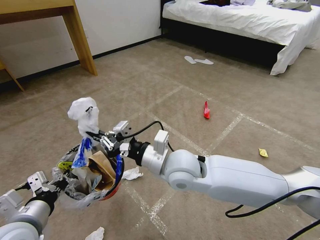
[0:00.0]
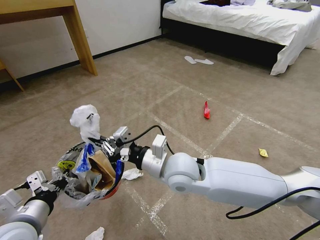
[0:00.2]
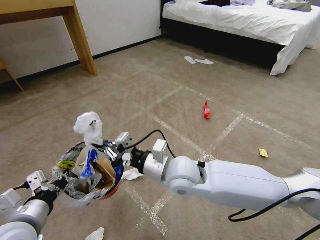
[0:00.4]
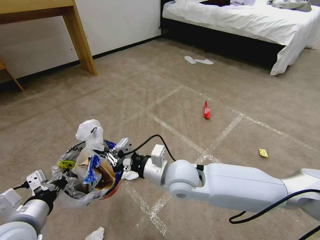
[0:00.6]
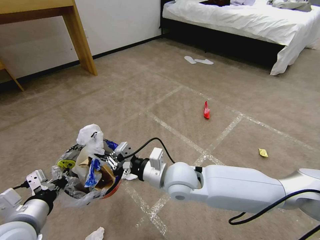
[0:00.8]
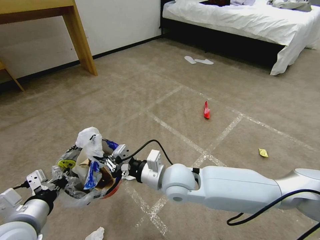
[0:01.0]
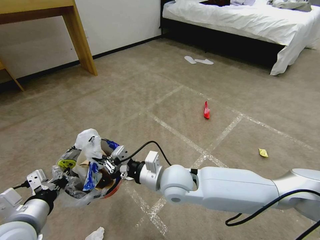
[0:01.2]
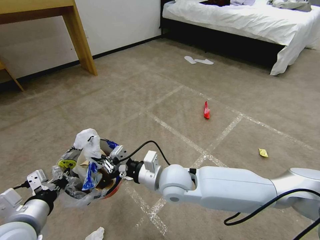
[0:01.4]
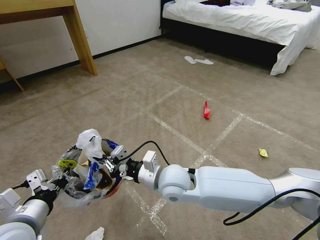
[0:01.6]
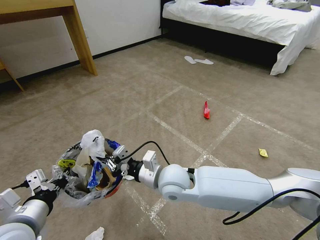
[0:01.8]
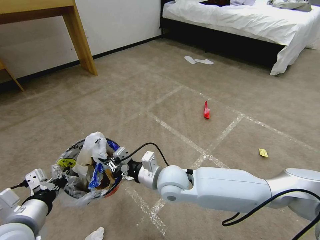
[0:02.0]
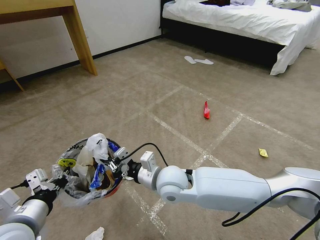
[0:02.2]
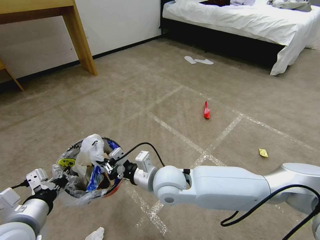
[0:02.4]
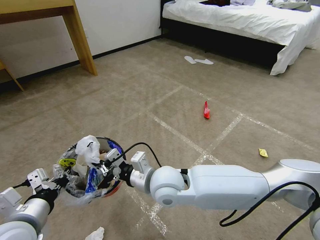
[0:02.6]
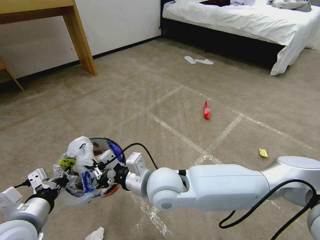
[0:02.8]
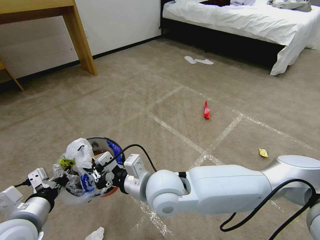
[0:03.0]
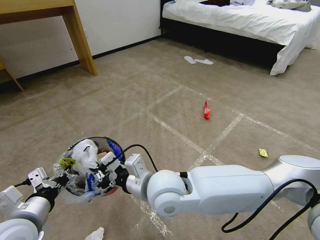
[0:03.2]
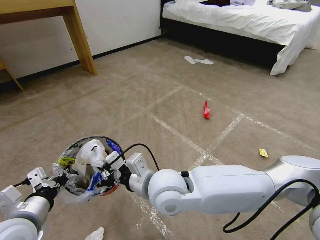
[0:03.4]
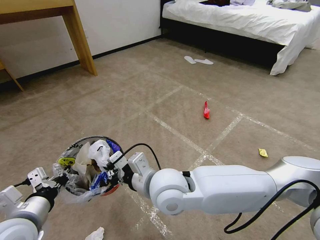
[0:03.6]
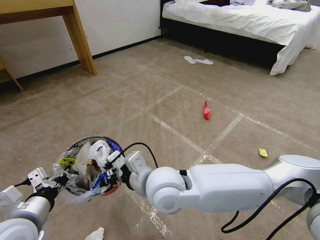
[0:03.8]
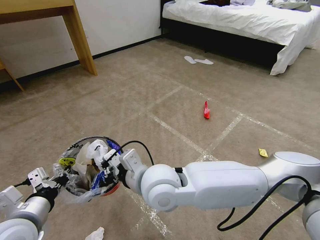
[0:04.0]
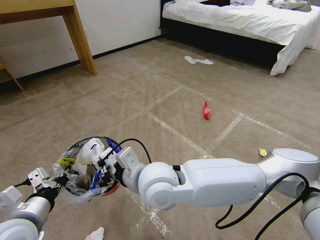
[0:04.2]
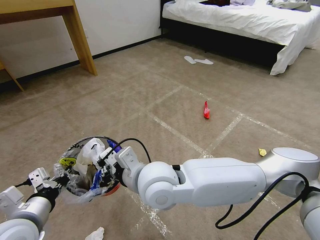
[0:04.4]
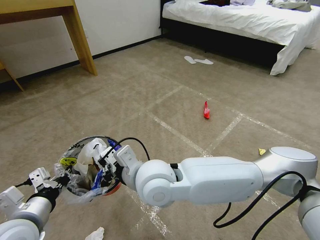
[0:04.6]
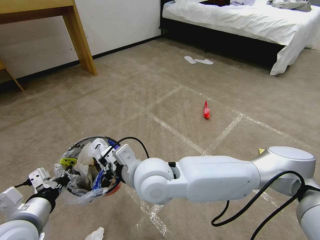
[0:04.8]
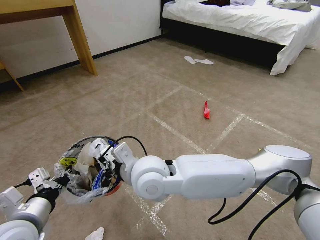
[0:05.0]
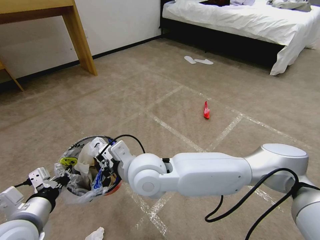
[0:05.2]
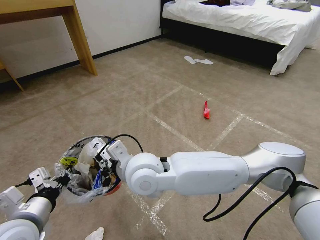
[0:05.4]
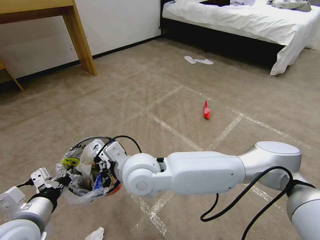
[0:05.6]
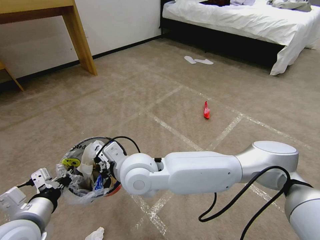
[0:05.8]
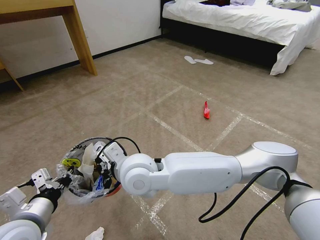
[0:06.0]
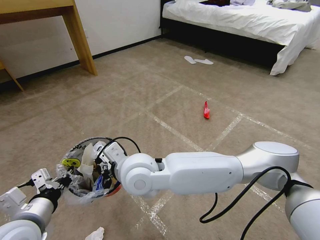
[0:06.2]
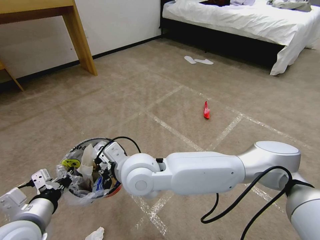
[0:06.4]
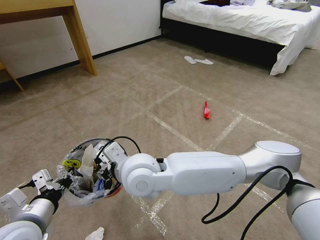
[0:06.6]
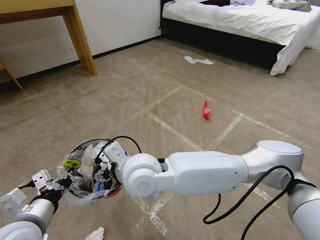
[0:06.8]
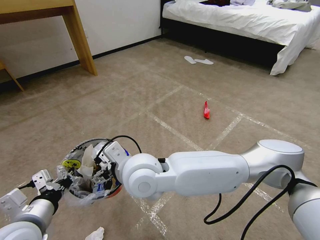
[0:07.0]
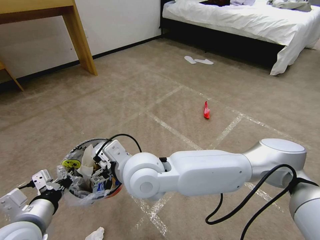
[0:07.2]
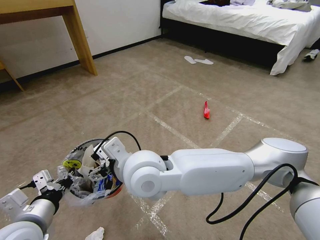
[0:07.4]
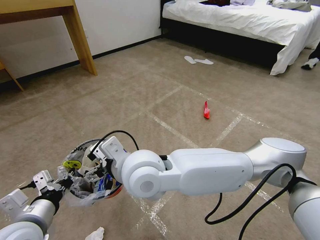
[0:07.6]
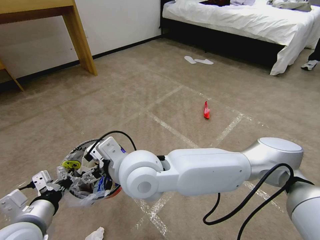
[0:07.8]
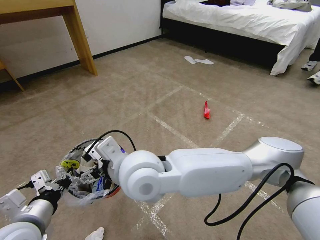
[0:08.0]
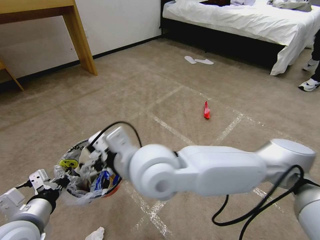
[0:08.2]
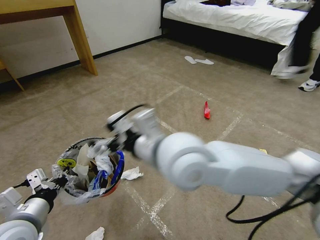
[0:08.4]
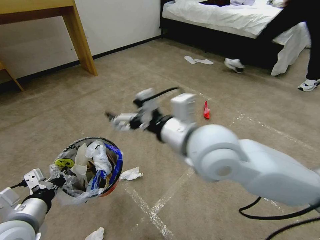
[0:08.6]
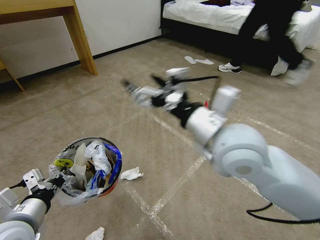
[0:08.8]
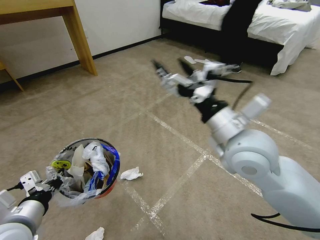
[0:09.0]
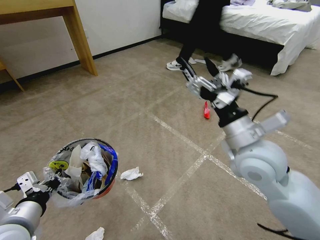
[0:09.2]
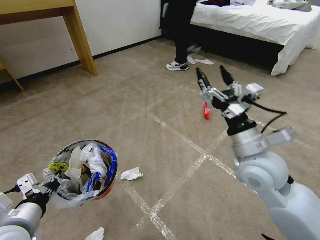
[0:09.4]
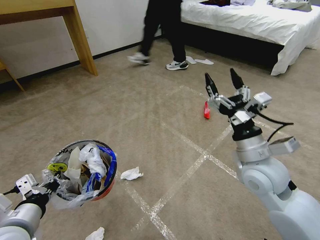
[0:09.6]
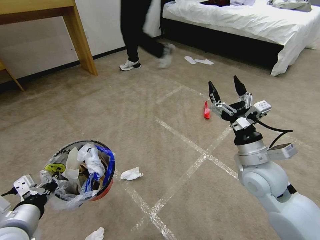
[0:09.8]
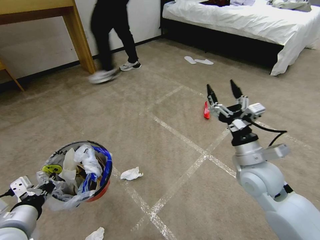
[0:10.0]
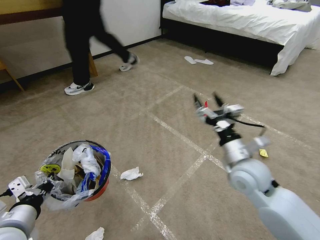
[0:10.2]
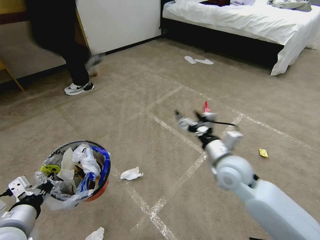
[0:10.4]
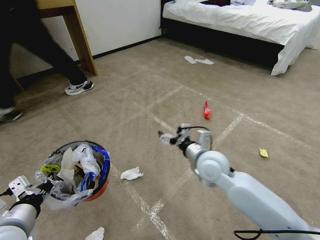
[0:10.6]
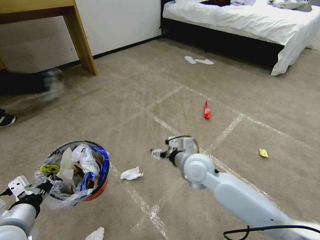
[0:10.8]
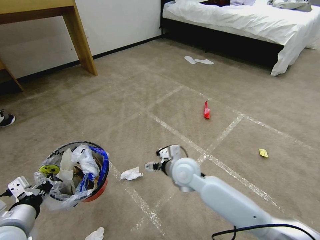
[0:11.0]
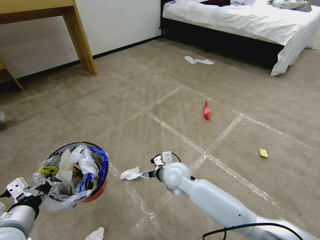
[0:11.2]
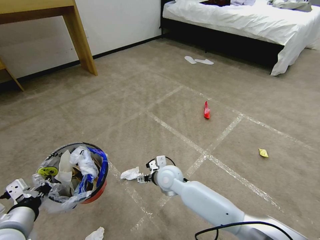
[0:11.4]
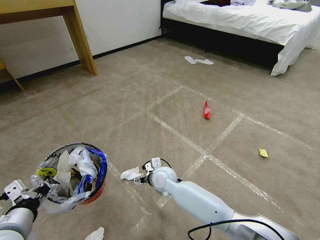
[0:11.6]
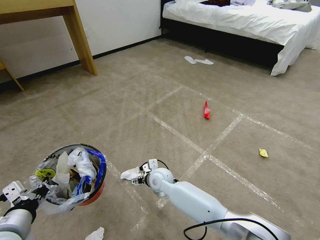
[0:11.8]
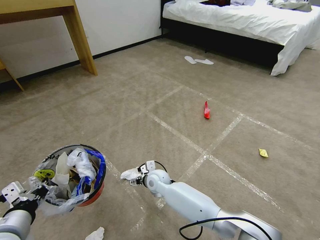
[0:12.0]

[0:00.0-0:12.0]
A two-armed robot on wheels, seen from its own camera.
Task of the whole recording: Pick up the trash bin and place the garbage on the floor into it.
0:00.0 to 0:01.6: The right gripper moves downward, roughly 5 cm.
0:01.6 to 0:03.0: The right gripper moves upward, roughly 5 cm.
0:03.0 to 0:04.4: The grippers move only a little.
0:04.4 to 0:06.0: The right gripper moves about 5 cm.
0:06.0 to 0:07.6: The right gripper moves roughly 5 cm, and opens up.
0:07.6 to 0:09.0: The right gripper moves to the right, about 25 cm.
0:09.0 to 0:10.4: The right gripper is displaced downward by about 15 cm.
0:10.4 to 0:12.0: The right gripper travels to the left and downward by approximately 30 cm.

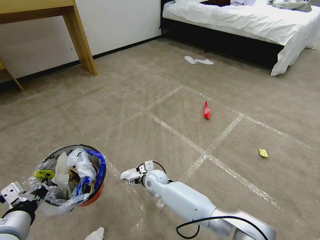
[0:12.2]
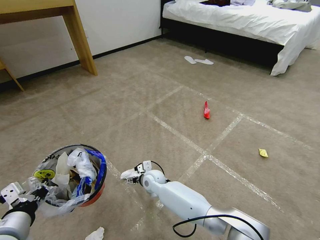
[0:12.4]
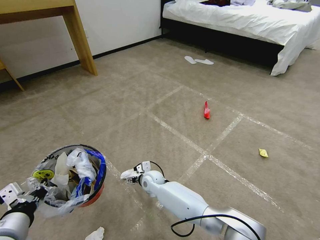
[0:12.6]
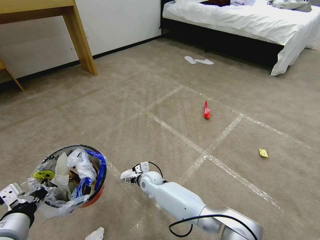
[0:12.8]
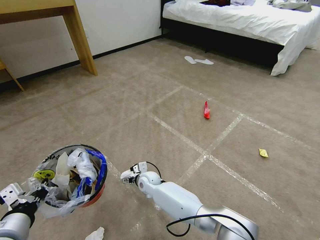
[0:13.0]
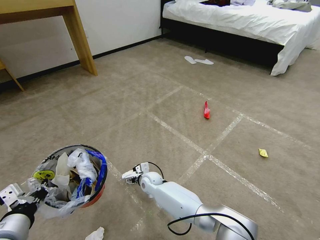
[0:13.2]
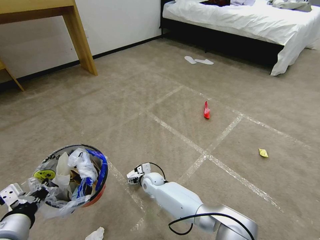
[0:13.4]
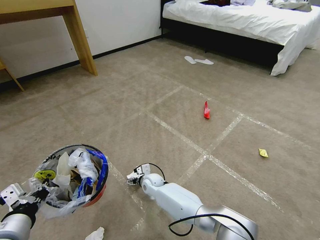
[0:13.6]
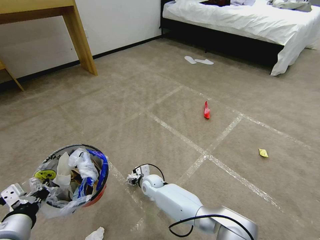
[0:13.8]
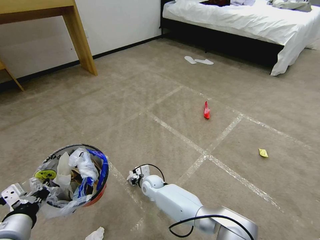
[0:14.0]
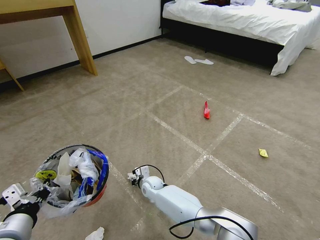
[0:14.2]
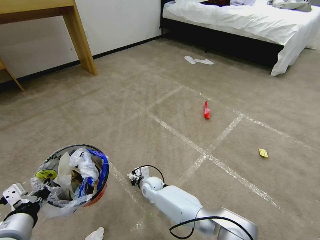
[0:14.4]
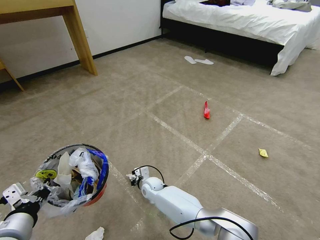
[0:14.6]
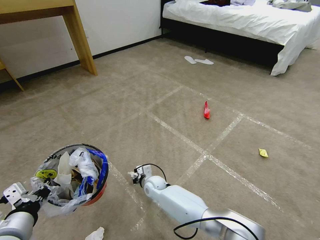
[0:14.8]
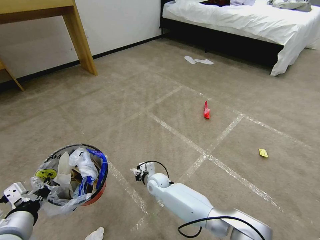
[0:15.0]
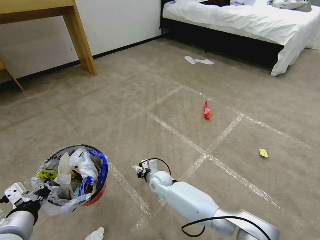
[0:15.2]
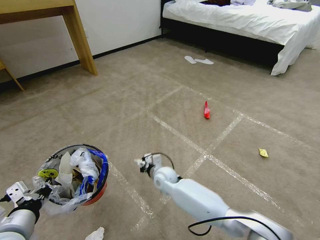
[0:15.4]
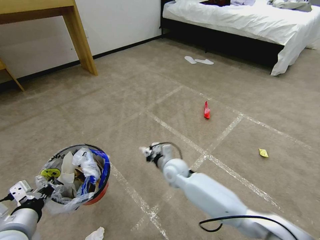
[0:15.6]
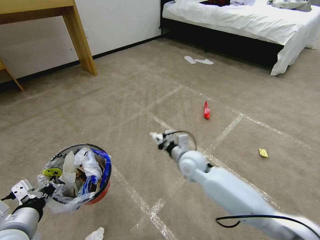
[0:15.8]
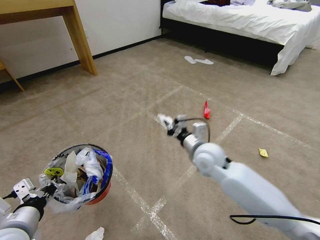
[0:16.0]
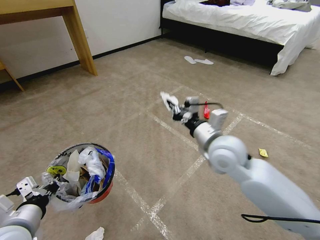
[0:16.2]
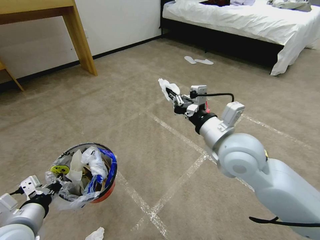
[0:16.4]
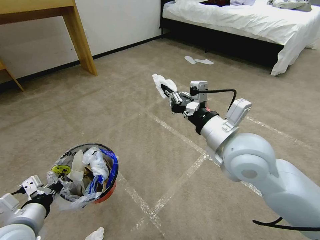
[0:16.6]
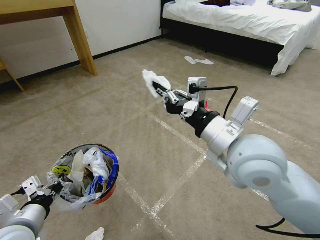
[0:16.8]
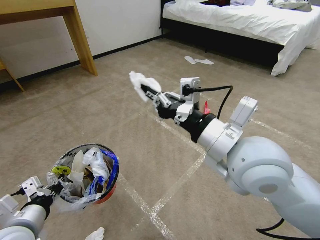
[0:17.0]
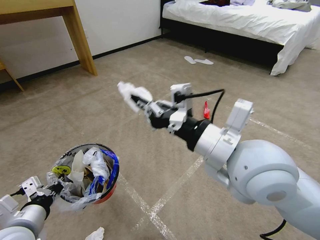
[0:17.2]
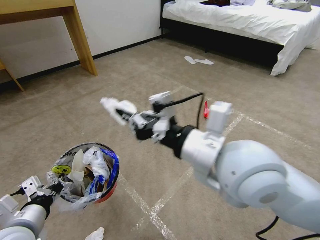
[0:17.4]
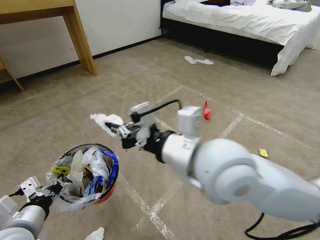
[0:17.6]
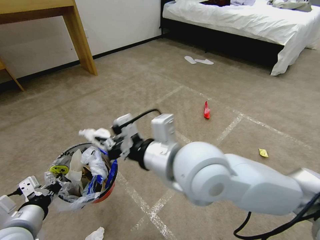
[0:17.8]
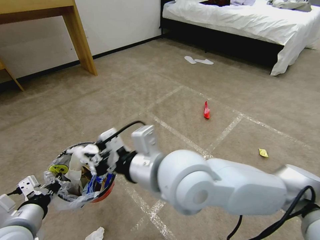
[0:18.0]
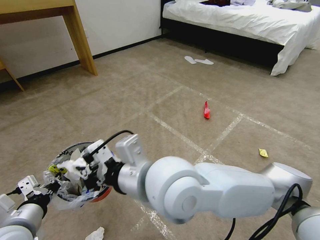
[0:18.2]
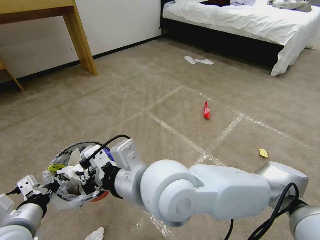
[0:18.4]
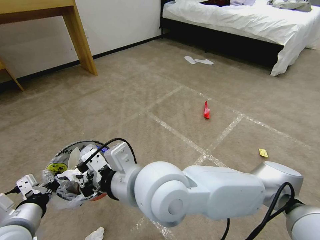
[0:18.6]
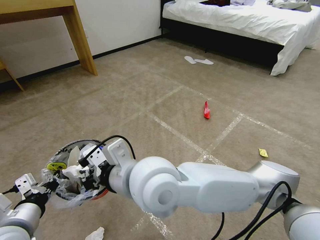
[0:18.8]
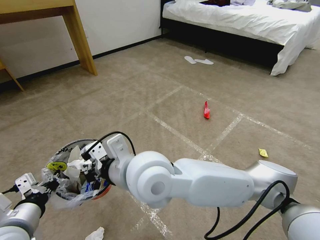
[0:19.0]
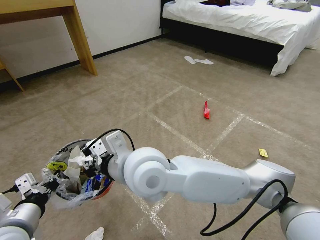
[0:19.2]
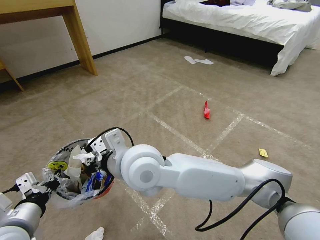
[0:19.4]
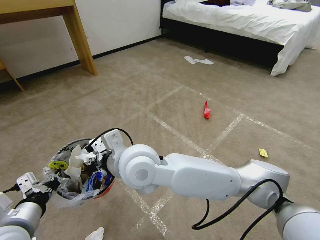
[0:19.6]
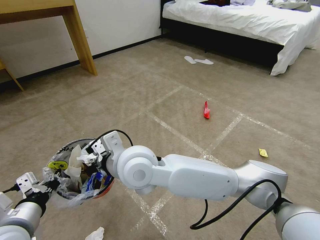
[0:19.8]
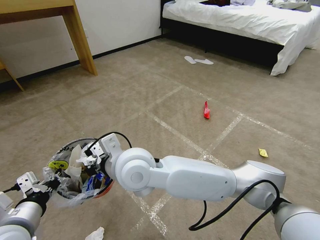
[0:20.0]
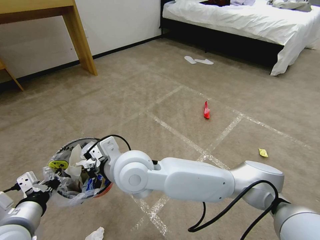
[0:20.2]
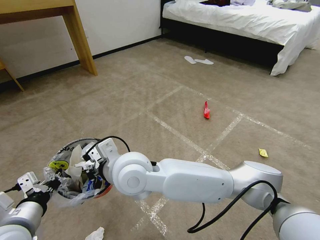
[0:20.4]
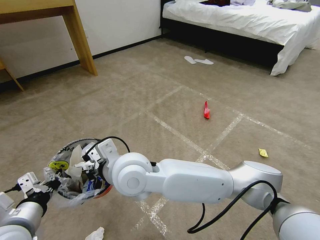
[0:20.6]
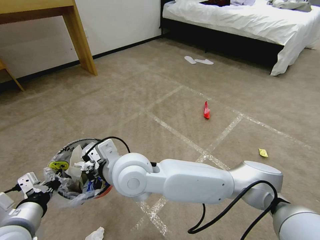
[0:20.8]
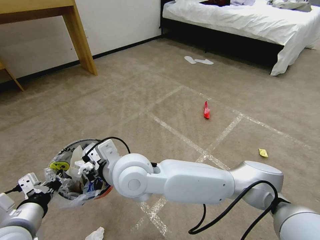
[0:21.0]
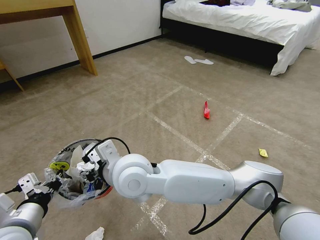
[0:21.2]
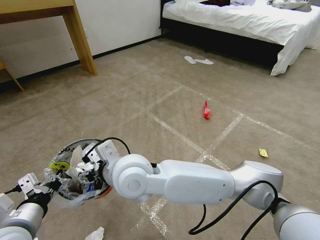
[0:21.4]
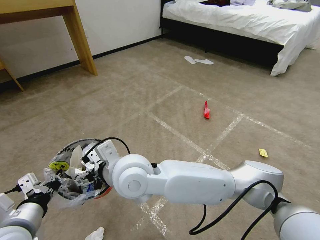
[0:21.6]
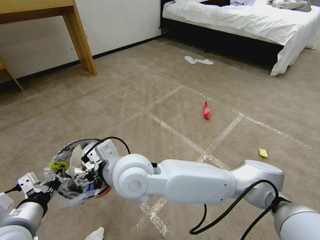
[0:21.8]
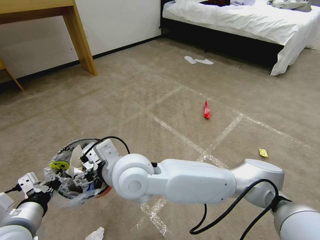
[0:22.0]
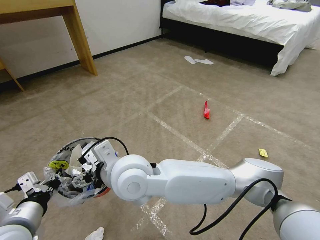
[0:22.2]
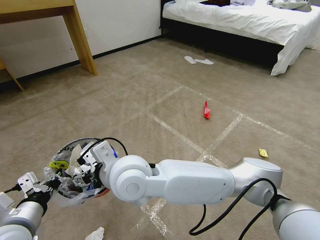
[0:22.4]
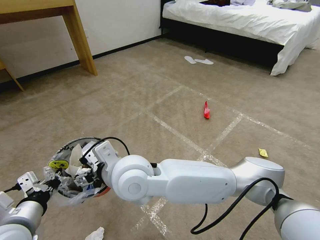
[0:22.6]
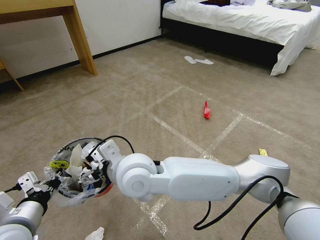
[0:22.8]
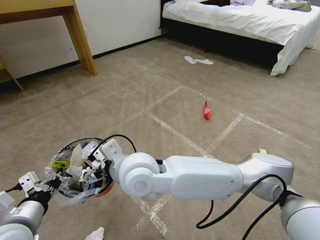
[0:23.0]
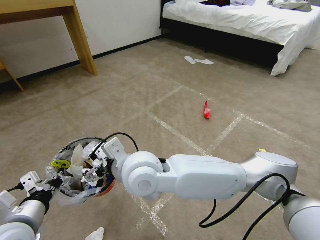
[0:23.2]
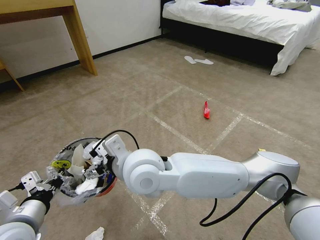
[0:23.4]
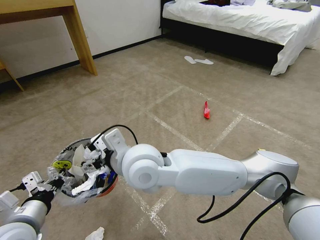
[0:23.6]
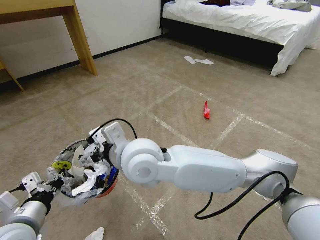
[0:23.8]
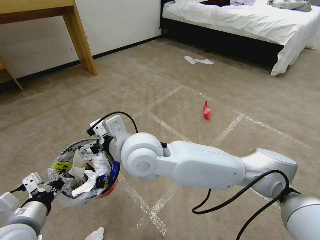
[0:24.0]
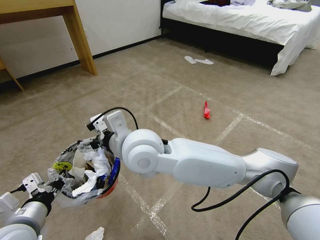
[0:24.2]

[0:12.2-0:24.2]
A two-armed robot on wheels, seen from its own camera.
Task of the whole recording: Pick up the trash bin and place the garbage on the floor into it.
0:12.2 to 0:13.8: The right gripper shifts approximately 5 cm downward.
0:13.8 to 0:15.2: The right gripper ends up approximately 5 cm from where it was, and closes up.
0:15.2 to 0:16.6: The right gripper moves upward and to the right, approximately 40 cm.
0:16.6 to 0:18.2: The right gripper shifts approximately 15 cm to the left.
0:18.2 to 0:19.8: The right gripper shifts some 10 cm to the left, forward and downward.
0:19.8 to 0:21.2: The right gripper opens.
0:21.2 to 0:22.6: The two grippers keep their place.
0:22.6 to 0:24.2: The right gripper ends up about 5 cm from where it was.
